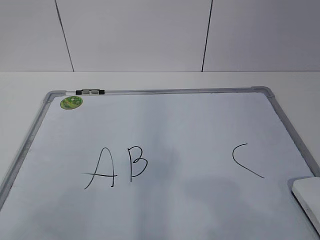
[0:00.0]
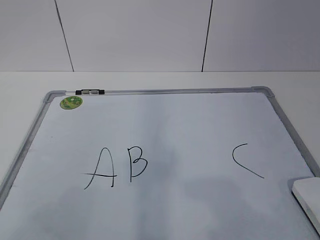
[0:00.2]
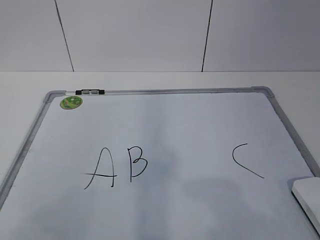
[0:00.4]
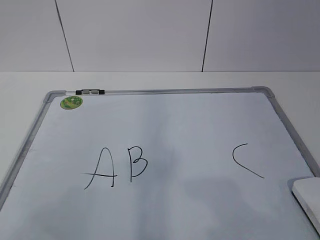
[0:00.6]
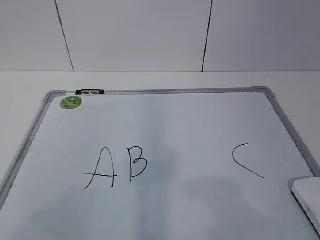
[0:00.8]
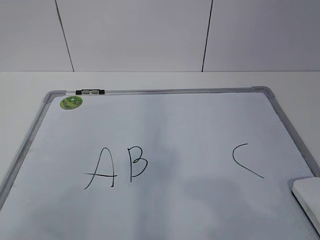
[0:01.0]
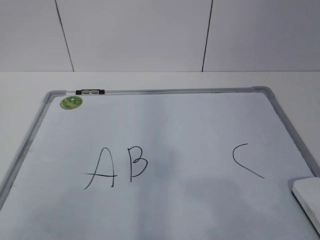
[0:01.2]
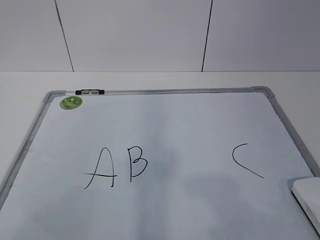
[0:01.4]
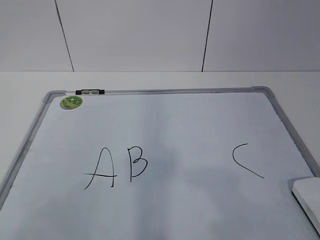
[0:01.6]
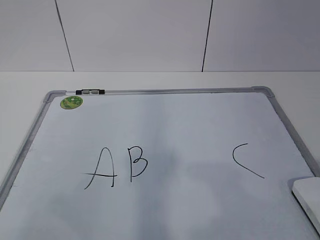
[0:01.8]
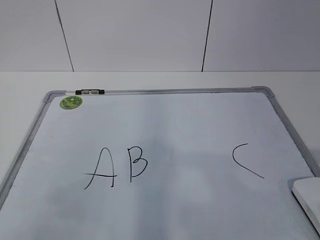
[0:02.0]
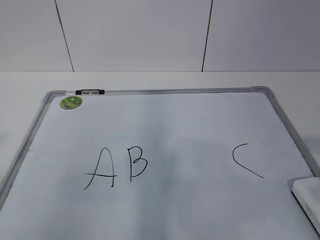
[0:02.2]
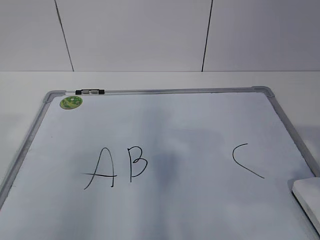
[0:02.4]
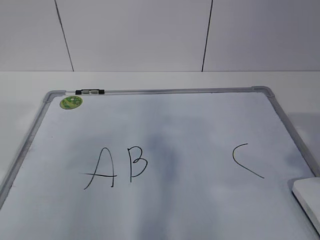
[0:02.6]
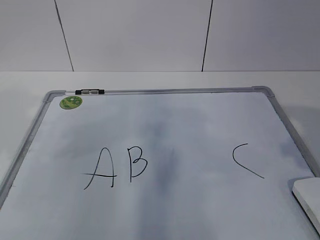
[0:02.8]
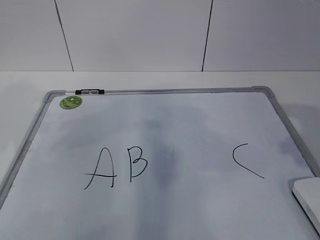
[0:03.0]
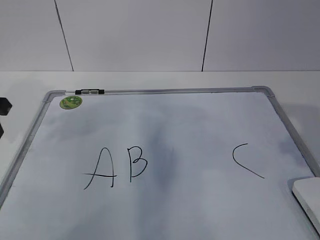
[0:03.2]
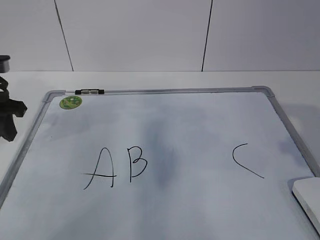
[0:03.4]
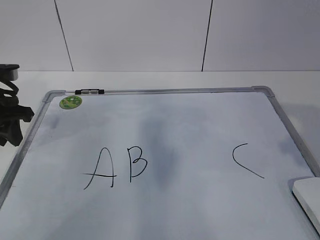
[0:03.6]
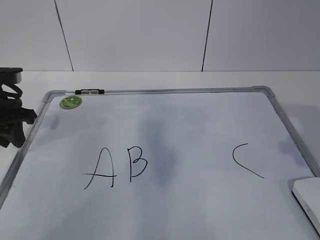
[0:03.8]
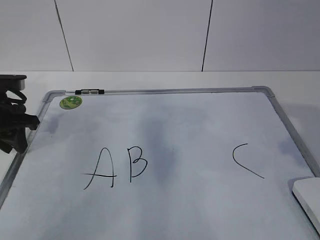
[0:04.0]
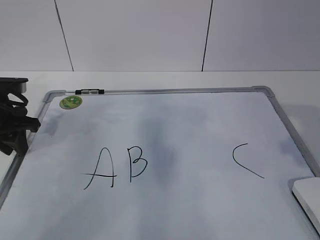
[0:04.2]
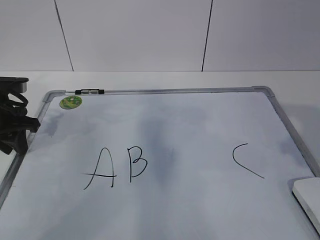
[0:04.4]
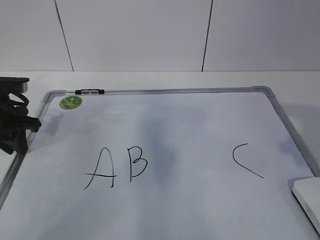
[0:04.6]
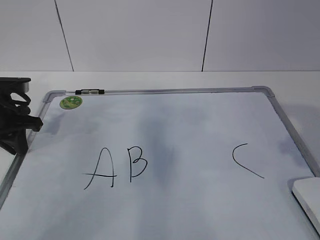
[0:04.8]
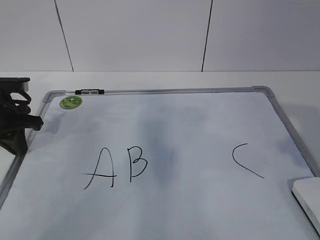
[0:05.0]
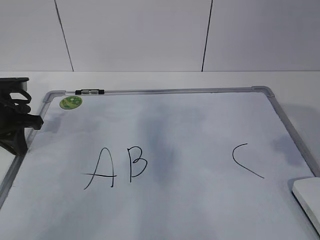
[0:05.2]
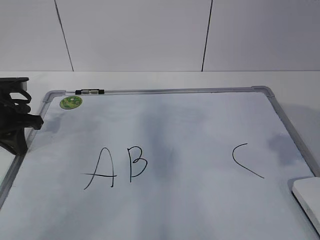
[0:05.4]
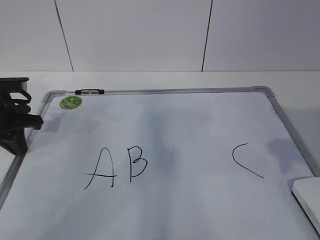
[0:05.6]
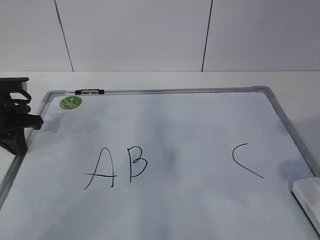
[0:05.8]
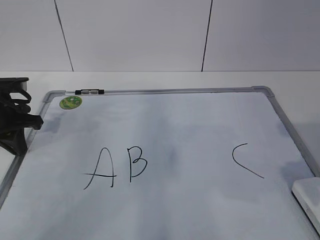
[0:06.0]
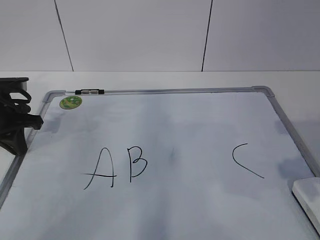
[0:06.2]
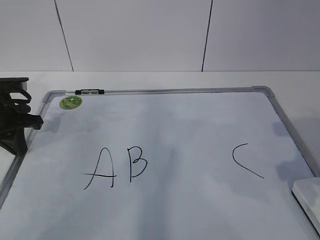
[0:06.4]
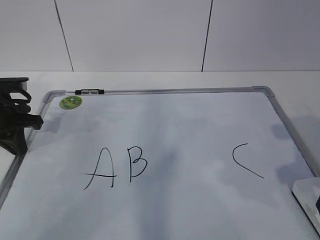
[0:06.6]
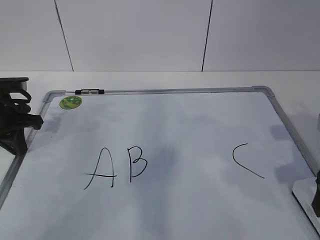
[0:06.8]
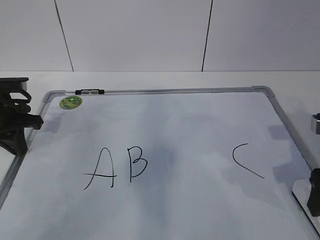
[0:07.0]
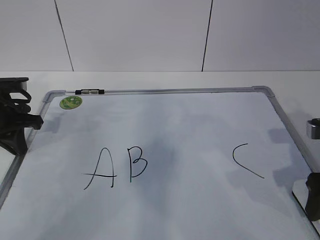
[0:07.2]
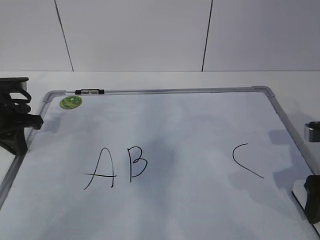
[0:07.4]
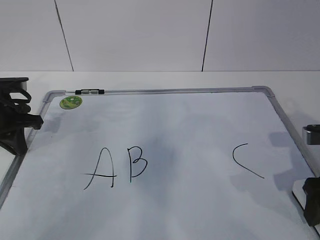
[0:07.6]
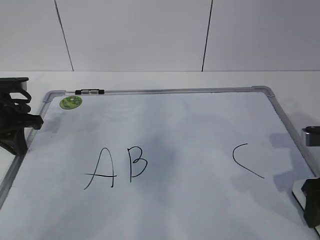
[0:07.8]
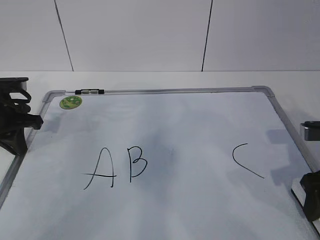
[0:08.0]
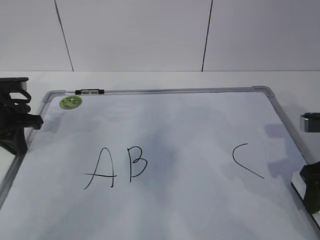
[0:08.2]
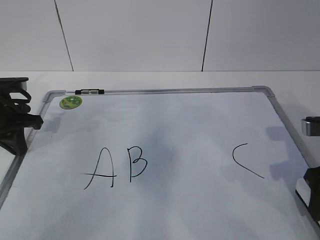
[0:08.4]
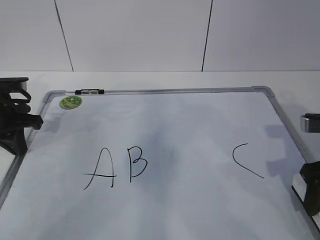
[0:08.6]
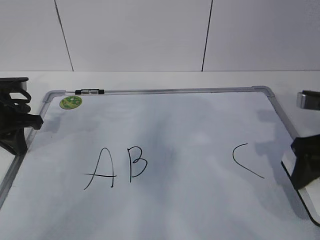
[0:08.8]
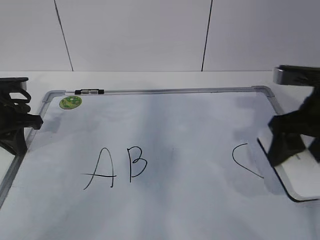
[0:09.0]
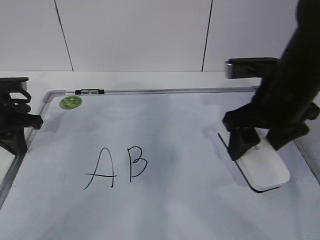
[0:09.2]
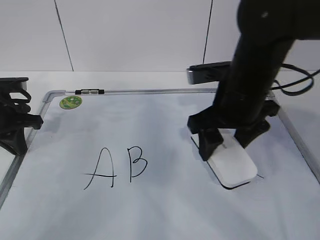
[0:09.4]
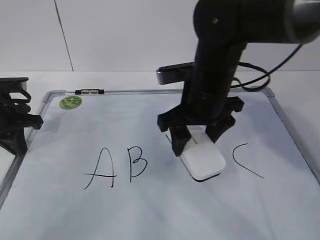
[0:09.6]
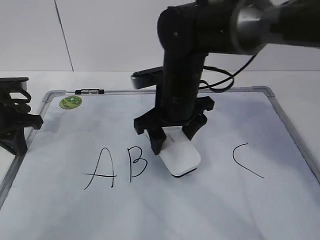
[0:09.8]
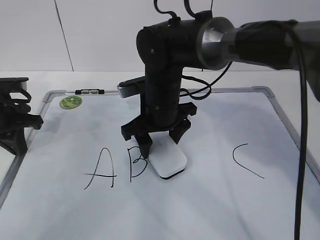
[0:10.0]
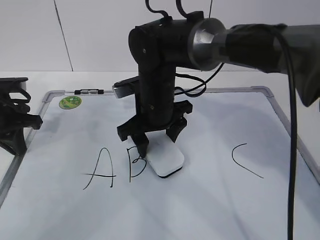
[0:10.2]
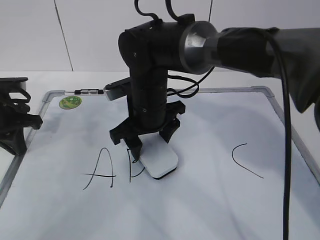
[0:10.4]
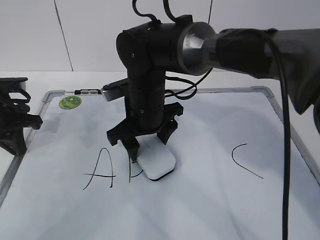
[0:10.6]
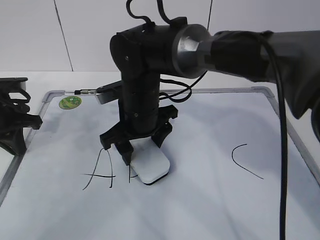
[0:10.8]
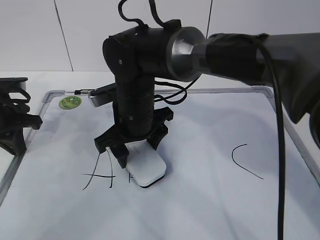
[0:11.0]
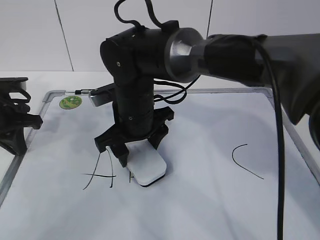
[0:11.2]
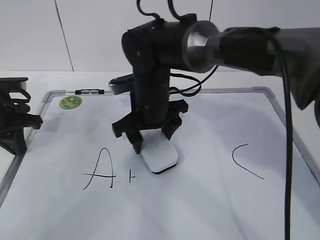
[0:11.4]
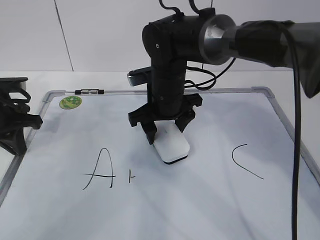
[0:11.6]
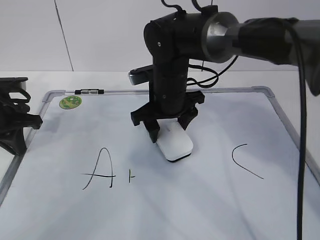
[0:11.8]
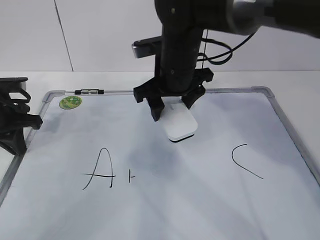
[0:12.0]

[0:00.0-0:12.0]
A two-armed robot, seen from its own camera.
Task of the whole recording: pick up the eraser on the blackboard and erase the letter "B".
Step, 0:00.0 to 0:04.2: Hold the drawing board steady with your left hand.
0:01.6 to 0:03.0: The left gripper goes about 25 cm forward. Meanwhile the right gripper shifts approximately 15 cm forward and upward.
0:03.0 to 0:04.4: The left gripper moves downward and forward, about 15 cm.
0:04.4 to 0:06.0: The left gripper closes. The right gripper shifts about 5 cm downward, and opens its fingers.
0:06.0 to 0:07.6: The right gripper goes some 10 cm downward and forward.
0:07.6 to 0:09.0: The right gripper heads upward, covering roughly 5 cm, and closes its fingers.
0:09.0 to 0:10.4: The right gripper is displaced to the left by approximately 25 cm.
0:10.4 to 0:12.0: The right gripper heads upward, covering approximately 5 cm.

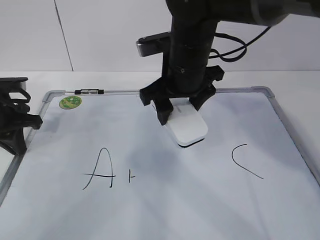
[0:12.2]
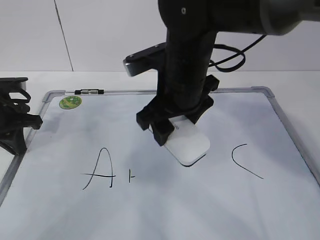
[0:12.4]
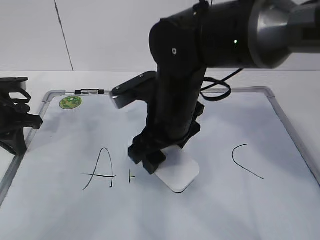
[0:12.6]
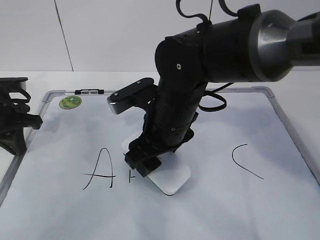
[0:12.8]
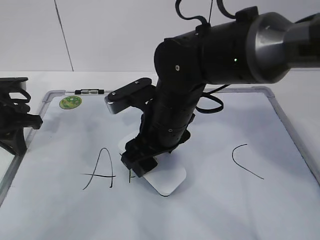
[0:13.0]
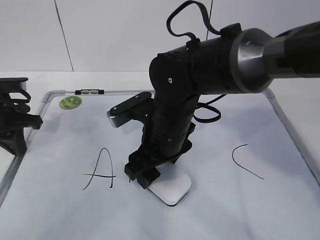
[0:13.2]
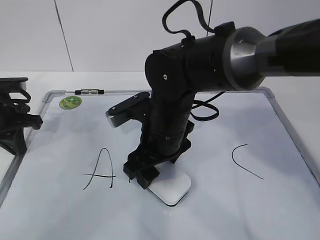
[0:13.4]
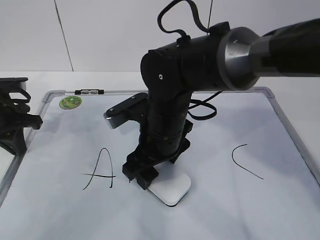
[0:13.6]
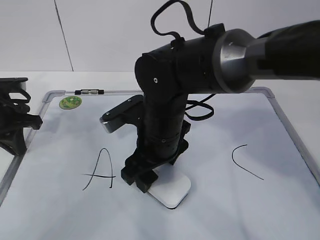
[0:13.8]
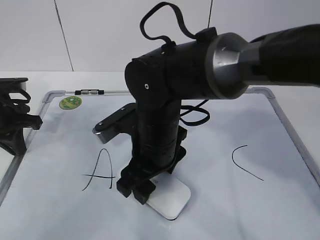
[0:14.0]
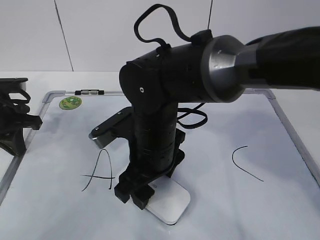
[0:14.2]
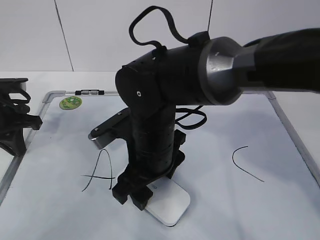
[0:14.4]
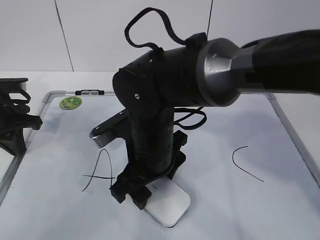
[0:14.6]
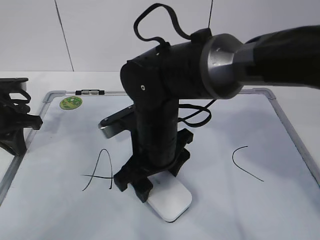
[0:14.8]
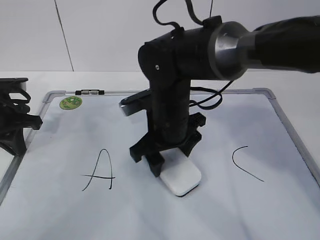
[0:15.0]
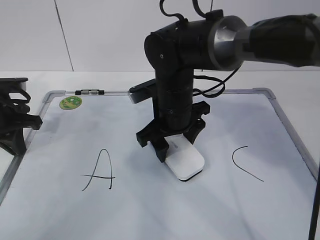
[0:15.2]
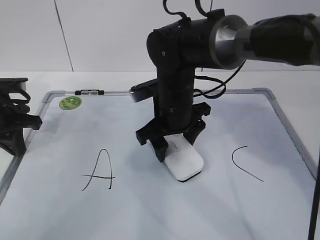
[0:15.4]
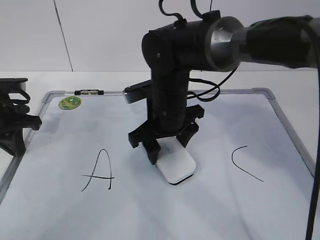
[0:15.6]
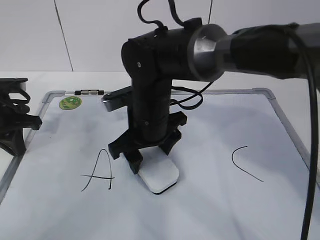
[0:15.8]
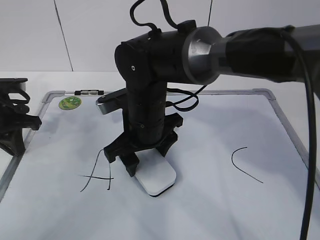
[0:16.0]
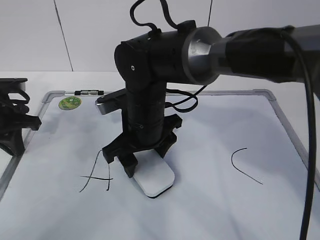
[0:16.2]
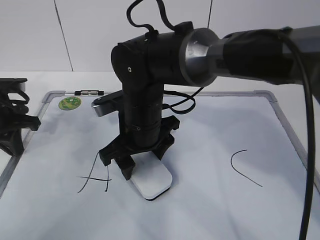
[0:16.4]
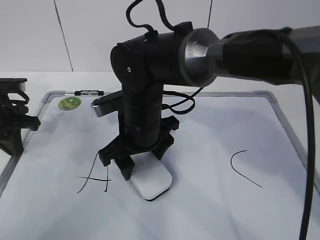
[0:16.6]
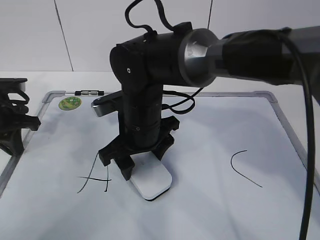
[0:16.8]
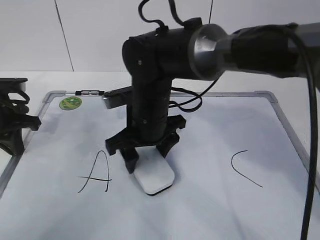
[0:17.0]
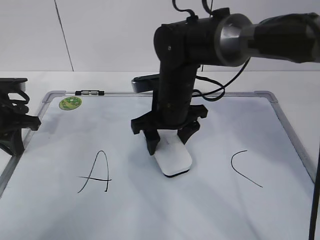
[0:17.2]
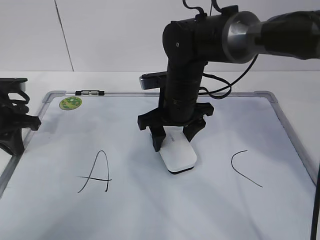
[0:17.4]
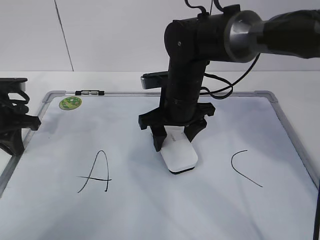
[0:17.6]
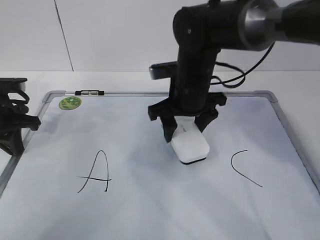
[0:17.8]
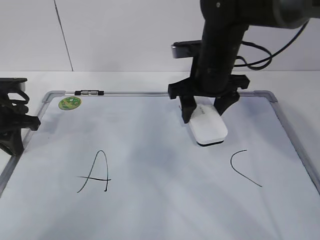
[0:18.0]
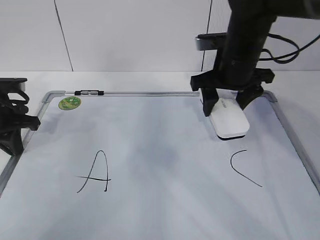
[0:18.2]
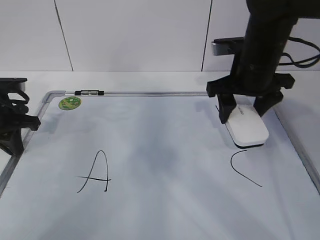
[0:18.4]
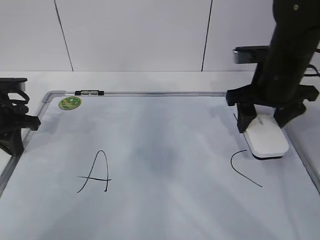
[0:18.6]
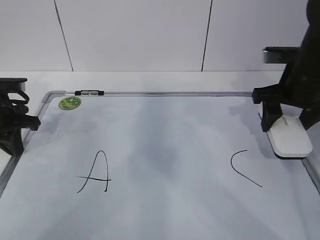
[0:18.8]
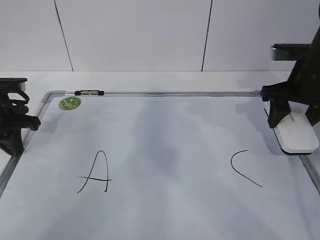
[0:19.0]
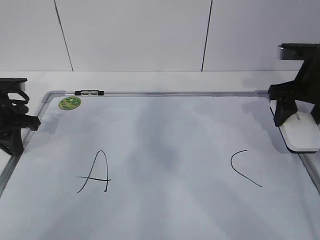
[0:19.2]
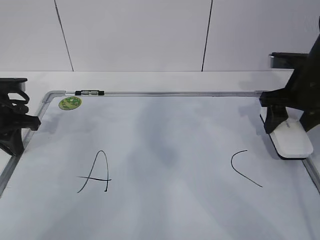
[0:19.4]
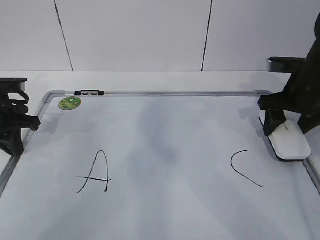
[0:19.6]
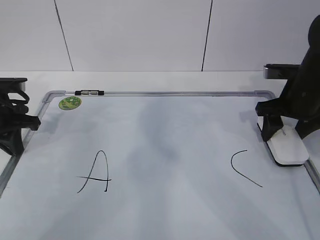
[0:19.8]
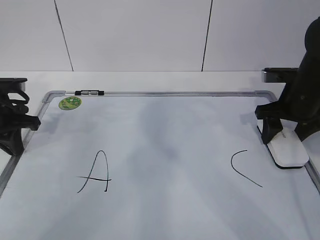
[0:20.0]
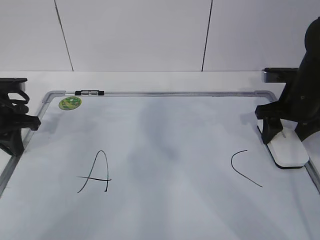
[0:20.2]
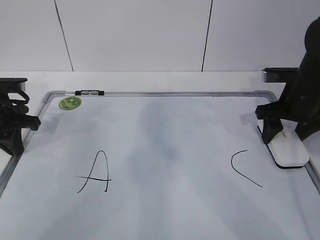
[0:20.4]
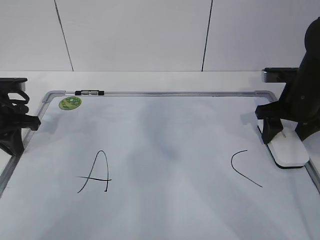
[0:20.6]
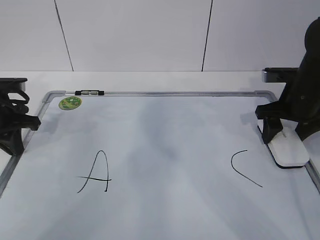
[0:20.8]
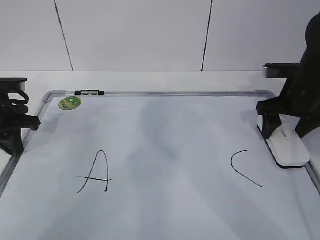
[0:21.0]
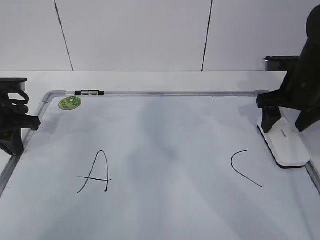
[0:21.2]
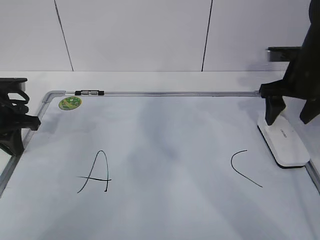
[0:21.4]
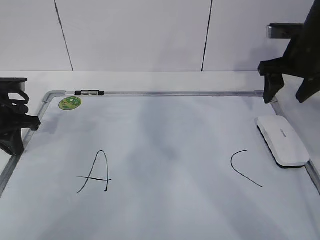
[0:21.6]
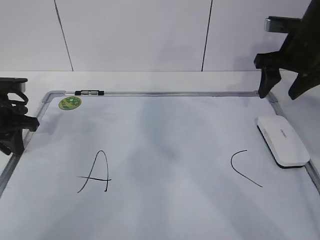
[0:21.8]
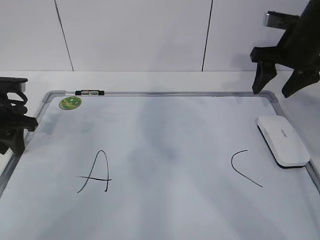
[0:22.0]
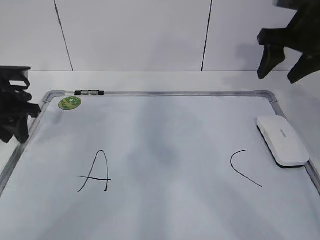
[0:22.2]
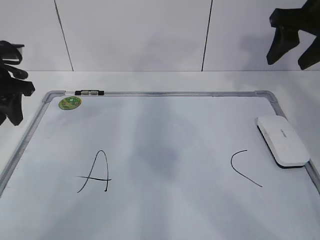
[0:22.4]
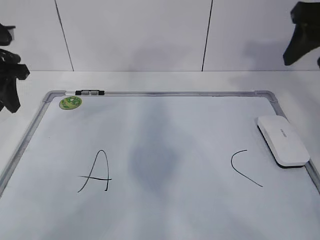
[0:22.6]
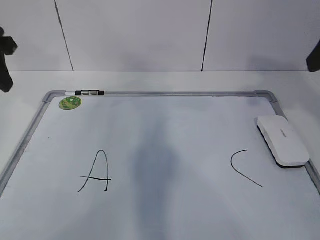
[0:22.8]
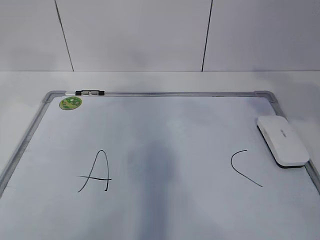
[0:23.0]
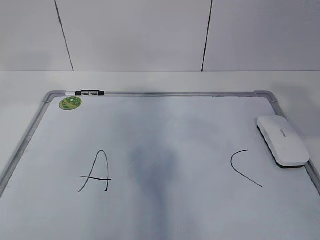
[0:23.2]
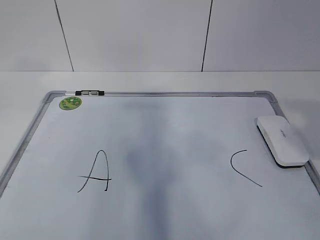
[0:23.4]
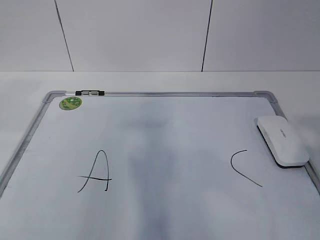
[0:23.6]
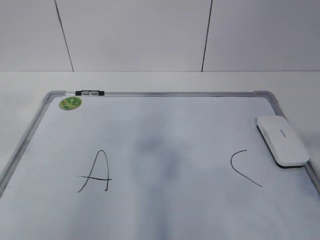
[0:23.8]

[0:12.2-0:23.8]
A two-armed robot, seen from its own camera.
Task of the whole recording: pick up the eraser on the blackboard and erase the letter "B".
Step, 0:12.2 to 0:14.4: Erase the letter B with your right hand.
Step, 0:14.8 to 0:17.2: Put down the eraser with your right hand.
0:12.2 to 0:13.6: The right gripper travels downward and backward by roughly 10 cm.
0:13.6 to 0:15.0: The grippers move only a little.
0:16.6 to 0:18.0: The right gripper is displaced to the right, forward and upward by roughly 15 cm.
0:18.0 to 0:19.4: The right gripper travels to the right by about 15 cm.
0:19.4 to 0:21.0: The right gripper opens its fingers.
0:21.0 to 0:22.4: The left gripper is displaced upward by some 5 cm, and opens its fingers, while the right gripper travels upward by roughly 15 cm, and closes up.
0:22.4 to 0:23.8: The left gripper shifts about 30 cm backward and upward. The right gripper shifts roughly 35 cm backward.
